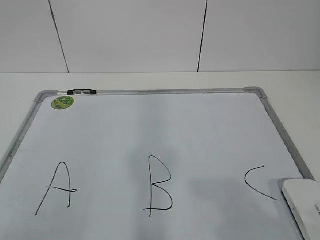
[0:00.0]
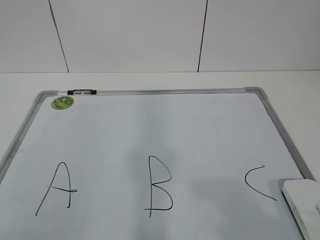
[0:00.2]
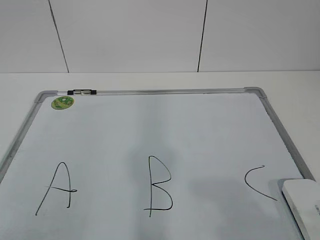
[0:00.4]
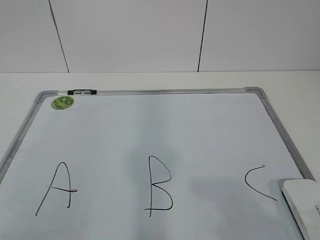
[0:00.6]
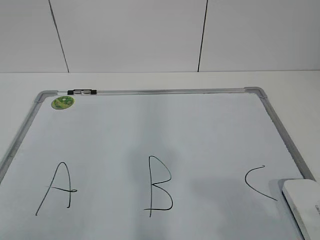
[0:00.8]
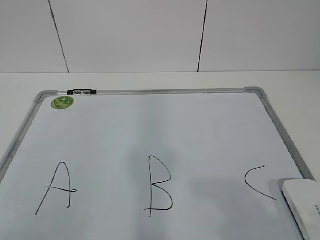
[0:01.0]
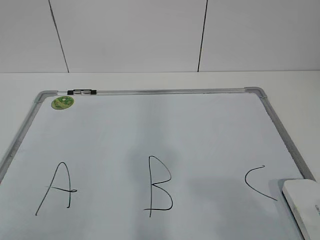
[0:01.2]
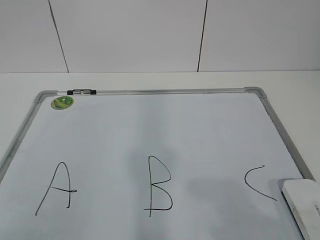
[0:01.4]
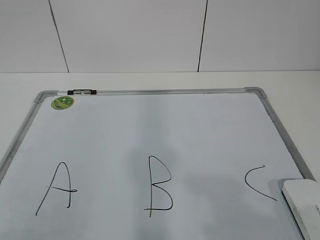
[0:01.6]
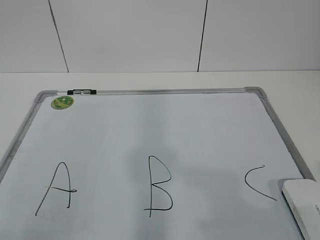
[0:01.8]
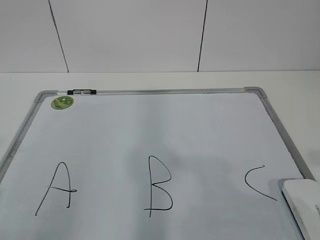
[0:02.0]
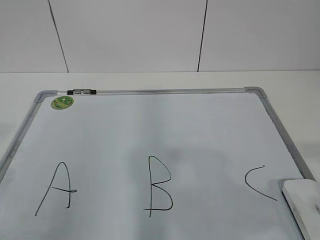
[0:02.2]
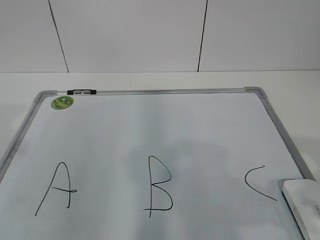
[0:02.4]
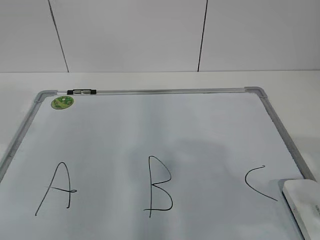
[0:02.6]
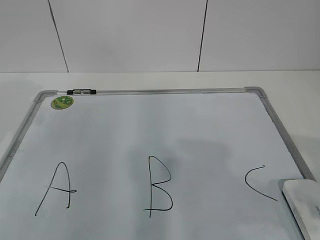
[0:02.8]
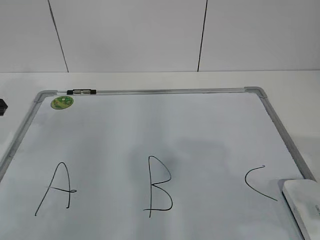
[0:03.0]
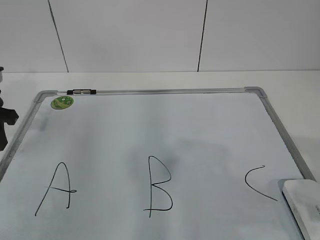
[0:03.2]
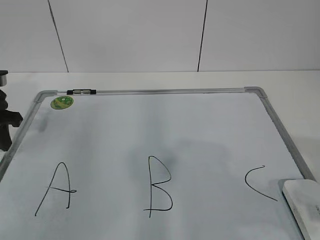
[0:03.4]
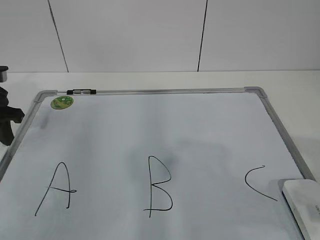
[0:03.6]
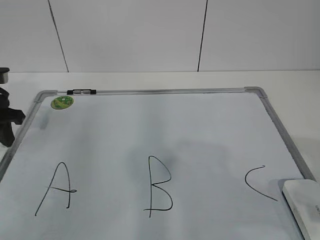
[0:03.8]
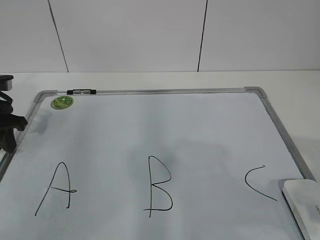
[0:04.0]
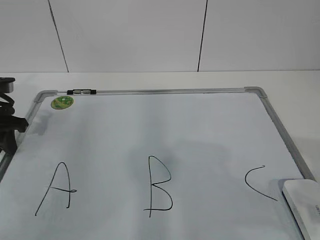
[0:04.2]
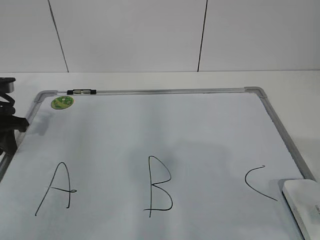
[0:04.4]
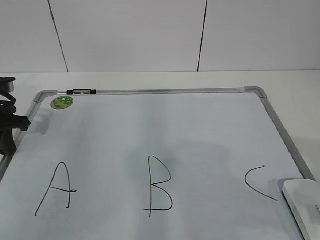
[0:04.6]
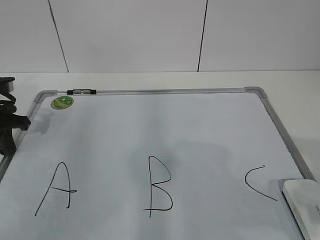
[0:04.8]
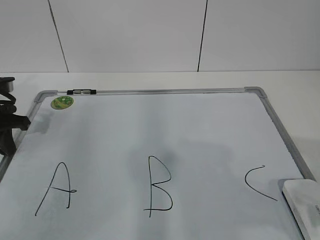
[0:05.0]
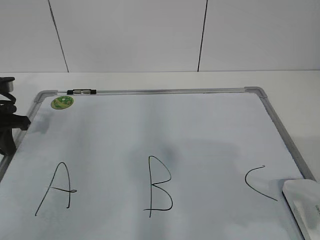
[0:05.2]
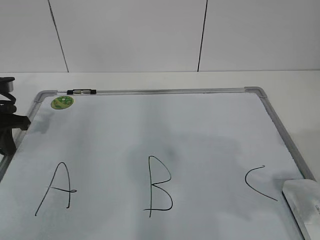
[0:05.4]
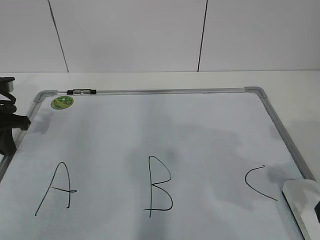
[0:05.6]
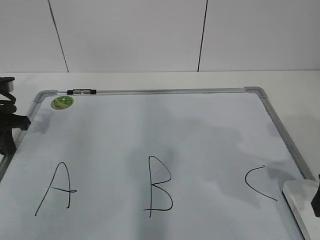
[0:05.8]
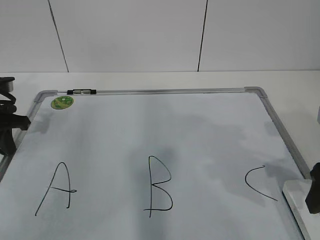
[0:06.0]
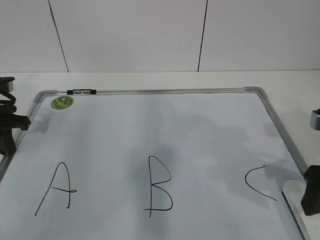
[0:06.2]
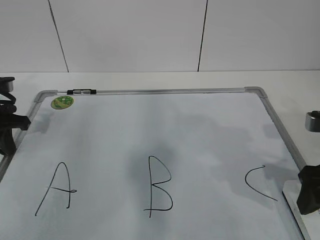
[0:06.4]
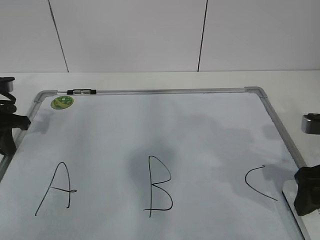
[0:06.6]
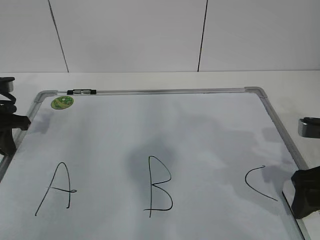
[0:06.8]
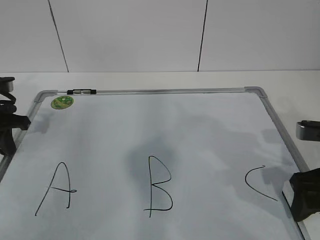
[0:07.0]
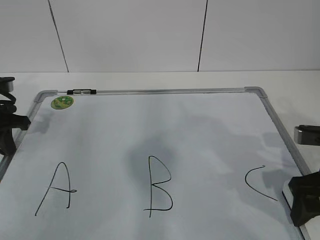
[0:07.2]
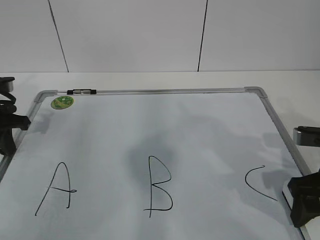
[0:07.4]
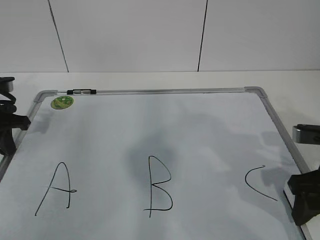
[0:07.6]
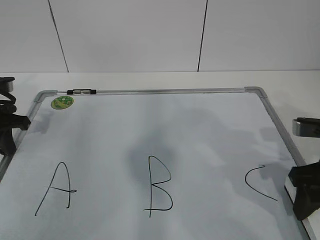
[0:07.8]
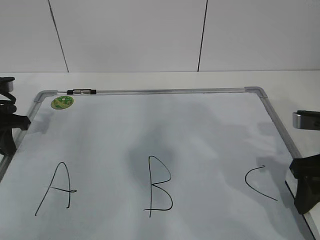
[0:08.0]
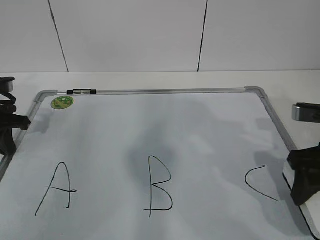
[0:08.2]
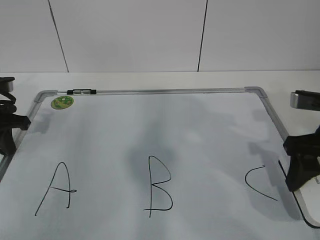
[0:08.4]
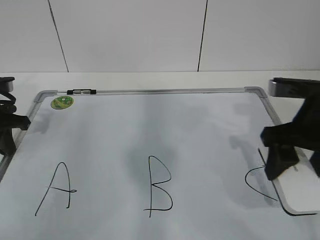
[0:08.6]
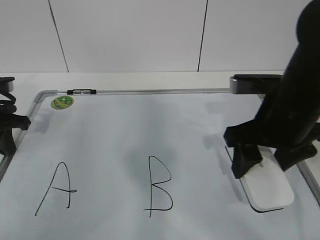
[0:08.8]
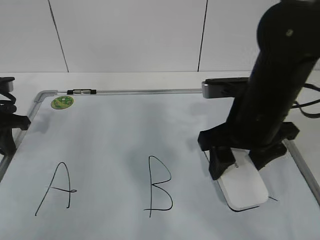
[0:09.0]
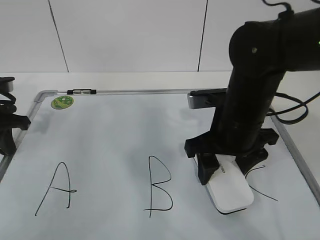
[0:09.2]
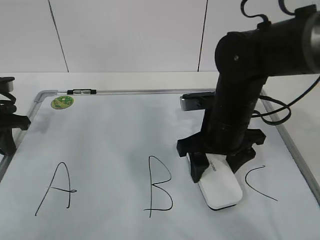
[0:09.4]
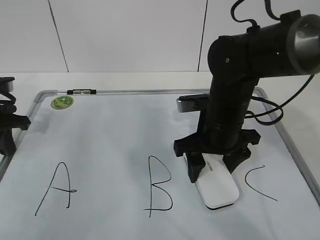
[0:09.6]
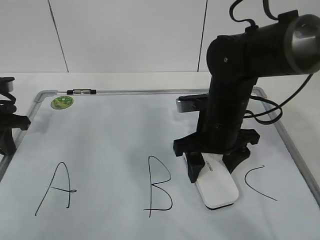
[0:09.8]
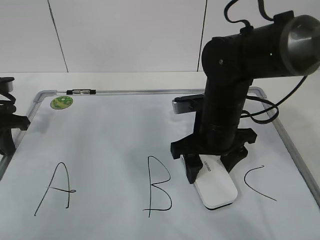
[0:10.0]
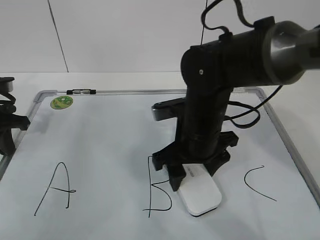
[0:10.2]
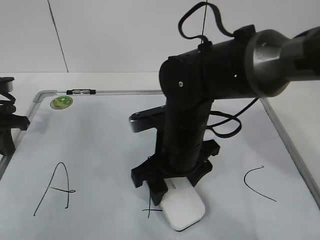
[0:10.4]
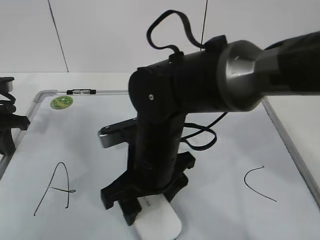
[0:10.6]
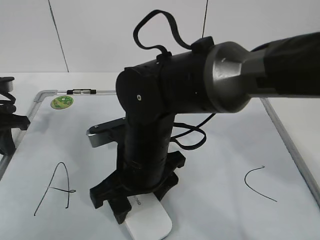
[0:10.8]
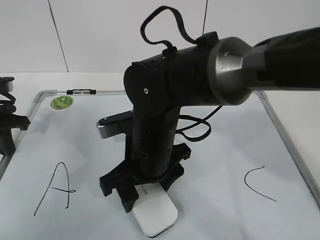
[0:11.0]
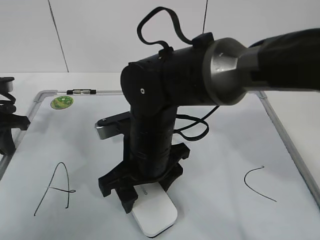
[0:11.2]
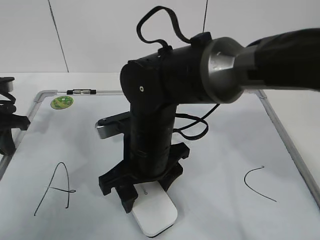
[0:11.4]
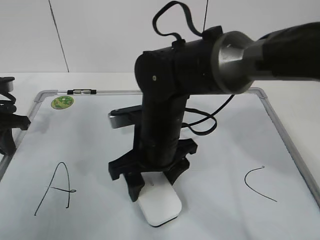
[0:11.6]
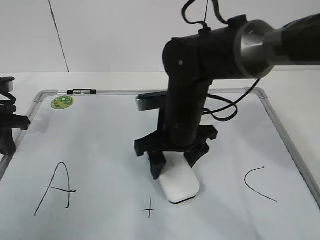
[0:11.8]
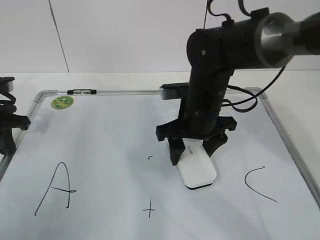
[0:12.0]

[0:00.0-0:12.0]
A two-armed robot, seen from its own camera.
Task of the whole recording: pick up the eraser on the blackboard and erase the letter "B".
Step, 0:03.8 to 0:06.0: Grab the eraser with your right hand.
0:01.6 to 0:03.0: The left gripper shifts some 30 cm forward; the right gripper travels forward by roughly 10 cm.
0:03.0 to 0:04.4: The left gripper travels downward by approximately 5 cm.
0:04.4 to 0:06.0: The right gripper travels forward and downward by roughly 15 cm, and opens its fingers.
0:06.0 to 0:07.6: The right gripper ends up roughly 5 cm from where it was, and closes its fingers.
0:07.6 to 0:09.0: The right gripper moves to the left and upward, roughly 15 cm.
0:09.0 to 0:10.4: The right gripper shifts roughly 10 cm to the left and downward.
0:10.4 to 0:12.0: The right gripper shifts about 5 cm forward.

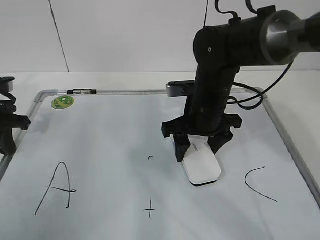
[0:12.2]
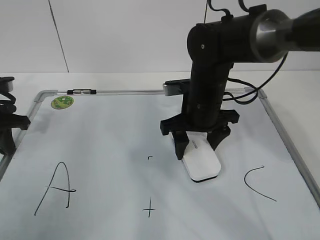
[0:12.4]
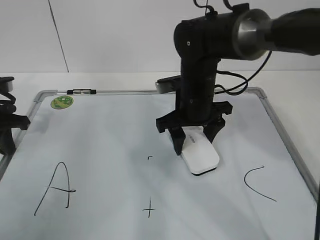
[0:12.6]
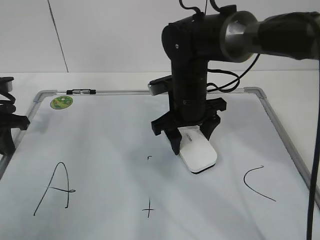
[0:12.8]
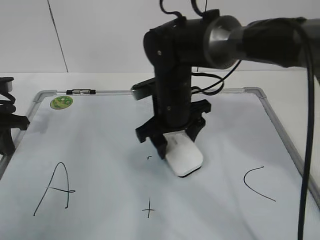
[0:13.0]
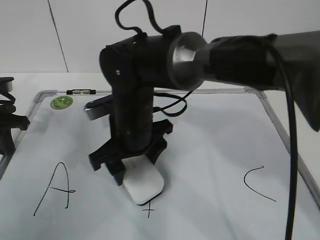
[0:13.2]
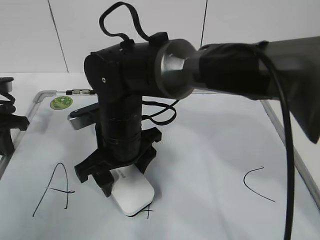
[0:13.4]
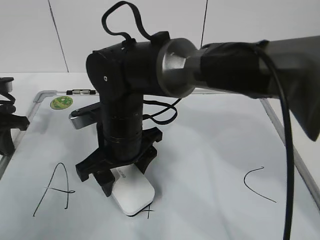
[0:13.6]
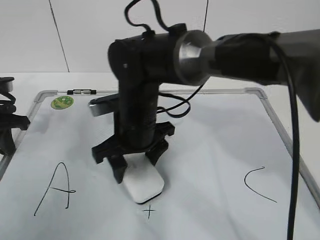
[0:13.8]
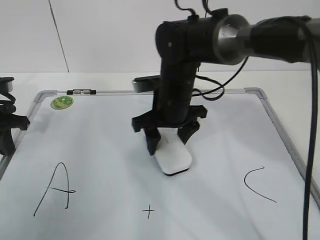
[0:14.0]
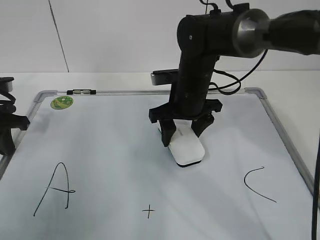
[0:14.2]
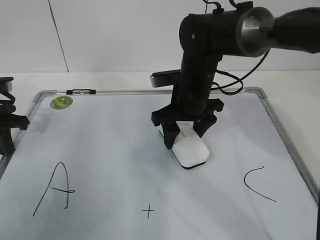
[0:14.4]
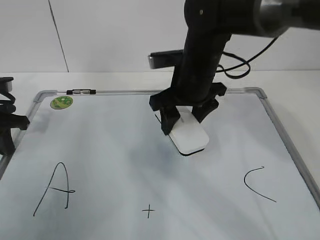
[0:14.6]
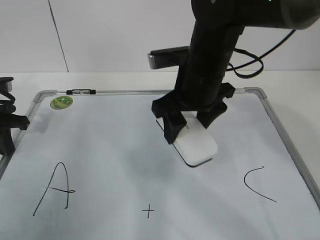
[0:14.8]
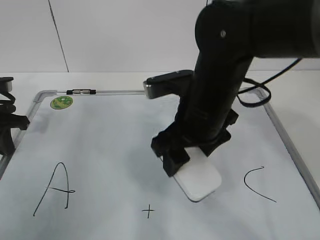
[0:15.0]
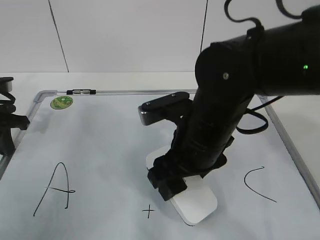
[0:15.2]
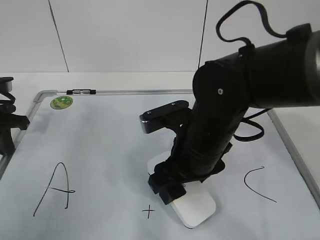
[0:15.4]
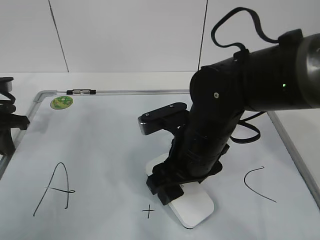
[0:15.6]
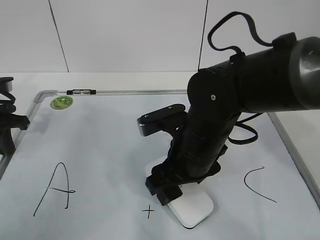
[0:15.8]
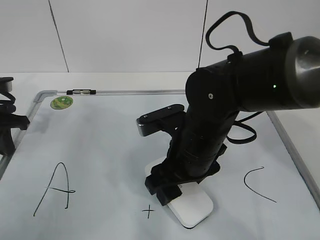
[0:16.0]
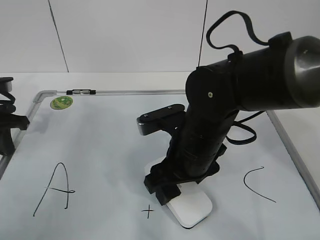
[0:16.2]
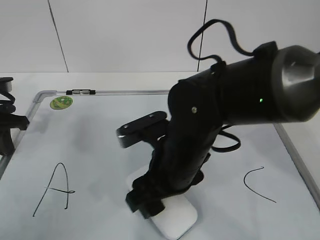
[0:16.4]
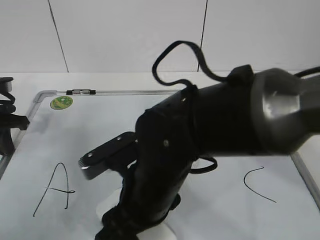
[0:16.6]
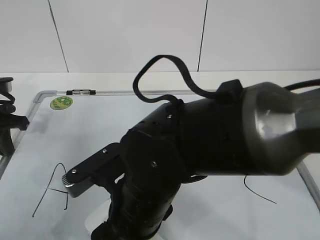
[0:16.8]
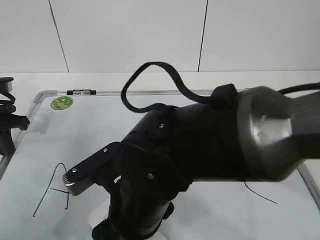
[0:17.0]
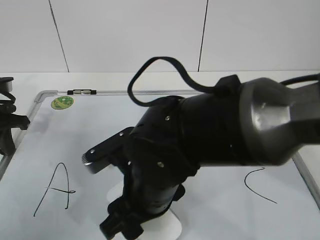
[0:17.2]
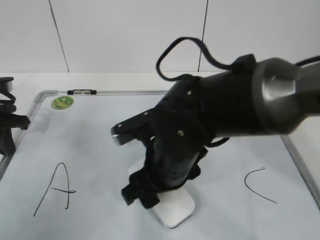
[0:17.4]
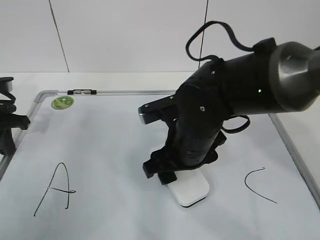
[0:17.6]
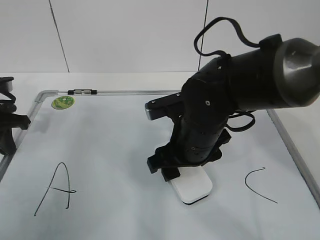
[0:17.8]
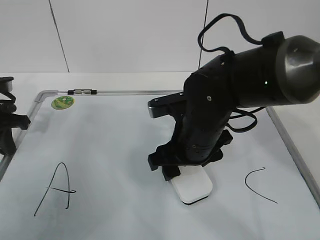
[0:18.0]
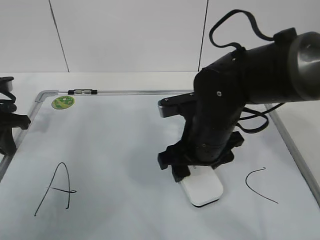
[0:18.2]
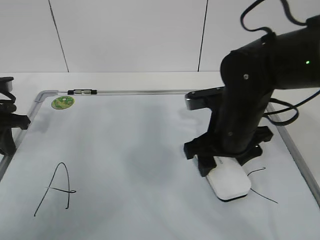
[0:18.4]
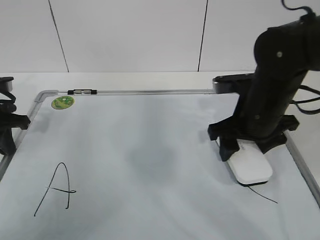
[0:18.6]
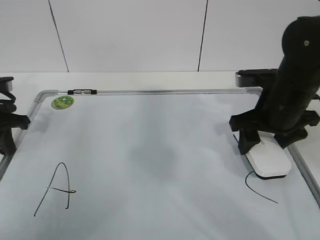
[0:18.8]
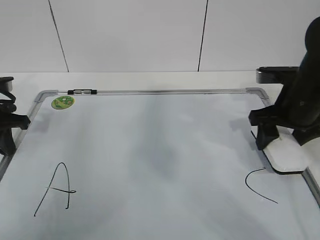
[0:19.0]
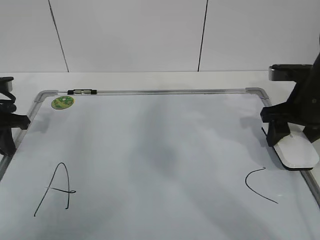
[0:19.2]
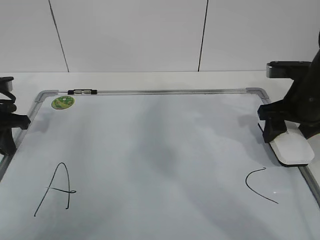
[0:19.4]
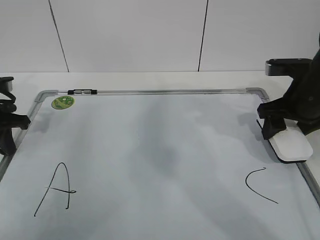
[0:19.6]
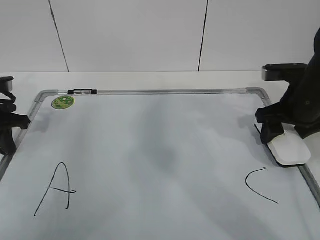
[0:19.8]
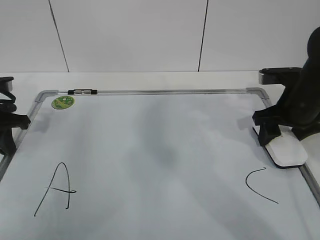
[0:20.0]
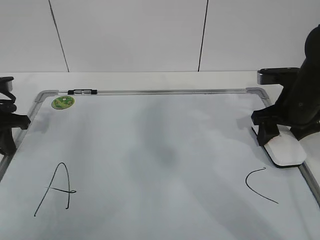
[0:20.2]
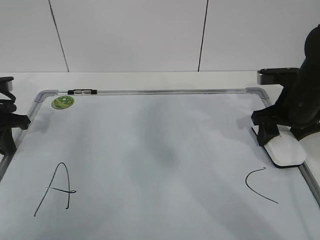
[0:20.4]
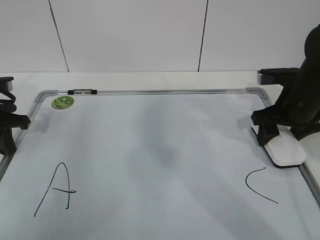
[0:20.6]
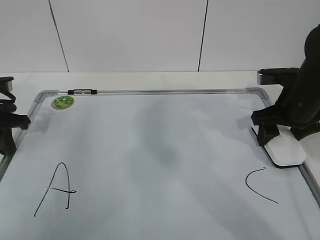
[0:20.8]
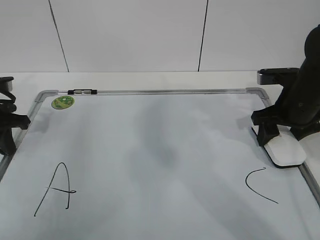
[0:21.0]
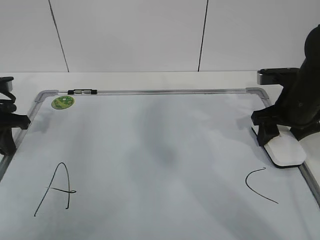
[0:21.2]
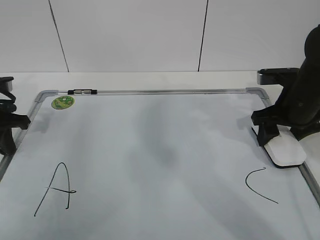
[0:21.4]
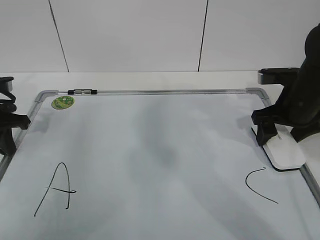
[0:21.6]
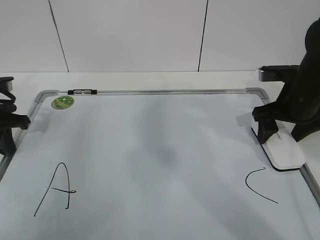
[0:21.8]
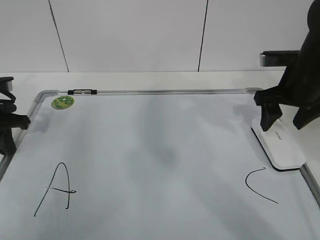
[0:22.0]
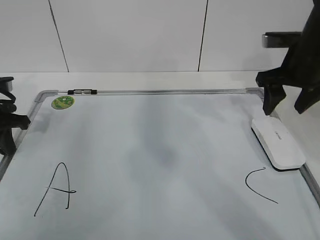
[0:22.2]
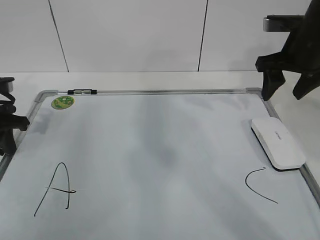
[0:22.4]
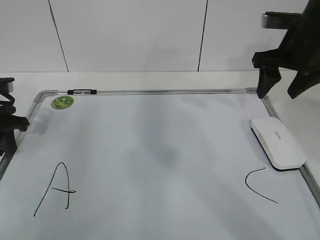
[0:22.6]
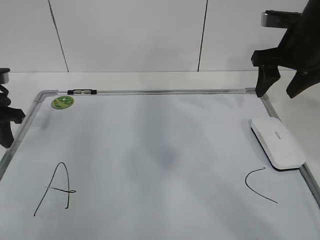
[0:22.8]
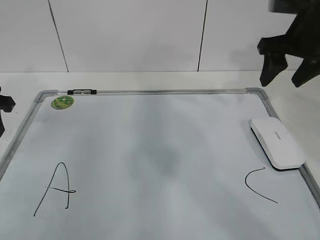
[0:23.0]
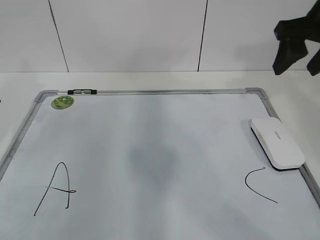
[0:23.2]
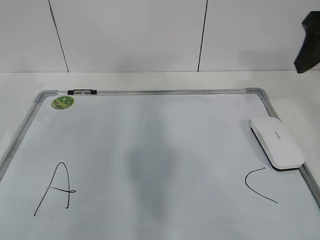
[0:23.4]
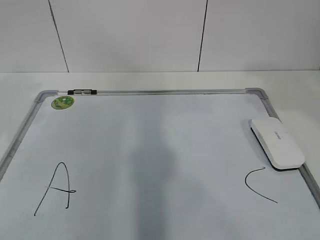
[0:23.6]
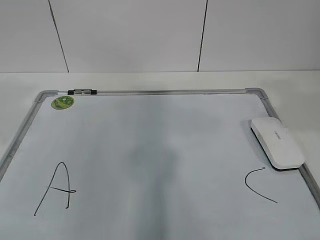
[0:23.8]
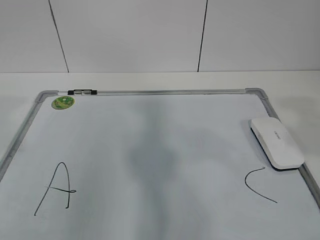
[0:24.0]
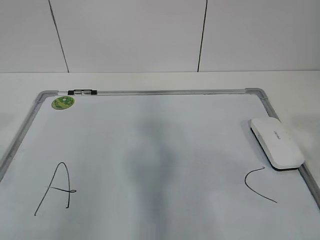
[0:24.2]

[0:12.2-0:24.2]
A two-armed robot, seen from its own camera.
Task of the whole recording: pick up the eraser on the blackboard and erase the letter "B".
Step, 0:12.2 to 0:14.8: Erase the letter B with your right hand.
Step, 0:15.2 to 0:17.8: Put down the eraser with your right hand.
0:12.2 to 0:13.8: The right gripper moves to the left, roughly 10 cm.
0:13.8 to 0:15.2: The right gripper heads to the right and backward, covering approximately 10 cm.
0:15.2 to 0:16.6: The right gripper is displaced to the left and backward by about 10 cm.
0:16.6 to 0:18.2: The right gripper shifts roughly 10 cm forward and to the right.
0:18.2 to 0:19.8: The right gripper shifts some 20 cm to the right.
0:19.8 to 0:21.2: The grippers move only a little.
0:21.2 to 0:22.6: The right gripper goes some 10 cm upward, and opens, then closes once more.
0:22.6 to 0:24.2: The left gripper heads backward and upward, covering roughly 30 cm, while the right gripper shifts approximately 35 cm backward.
